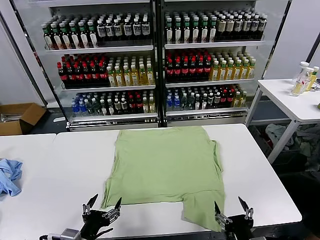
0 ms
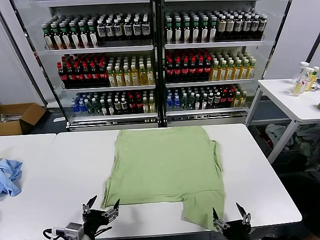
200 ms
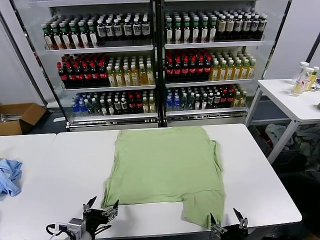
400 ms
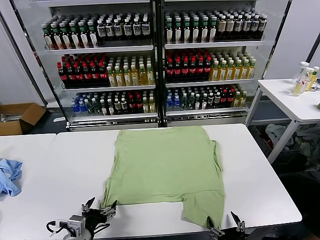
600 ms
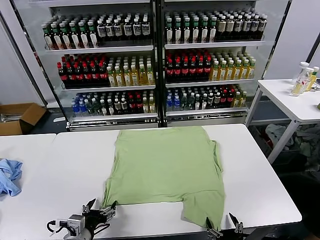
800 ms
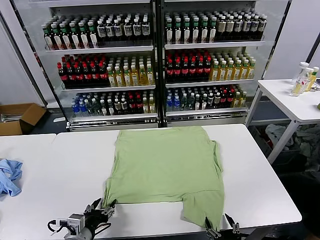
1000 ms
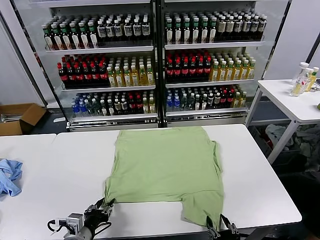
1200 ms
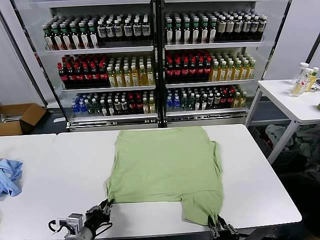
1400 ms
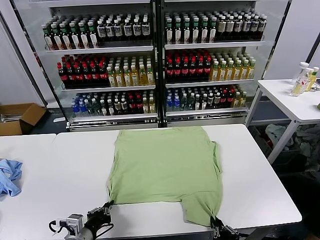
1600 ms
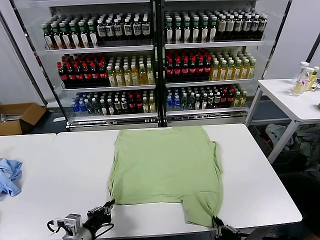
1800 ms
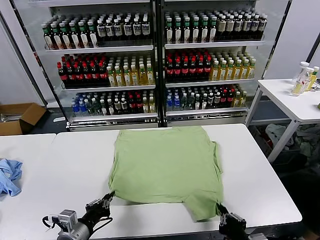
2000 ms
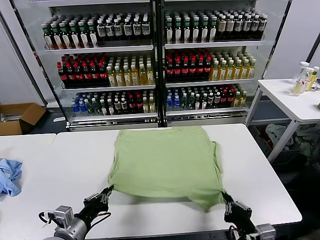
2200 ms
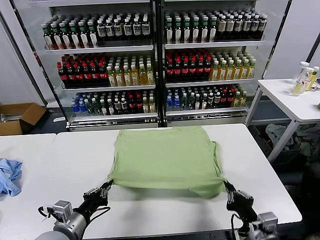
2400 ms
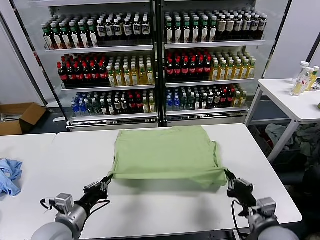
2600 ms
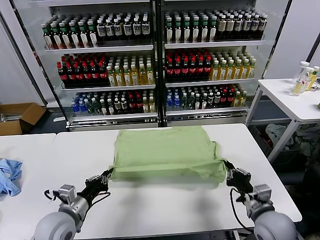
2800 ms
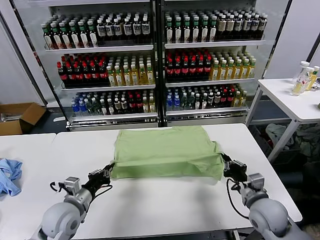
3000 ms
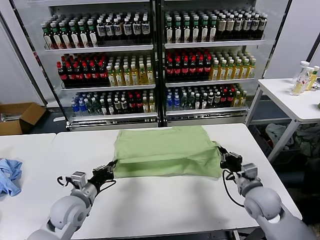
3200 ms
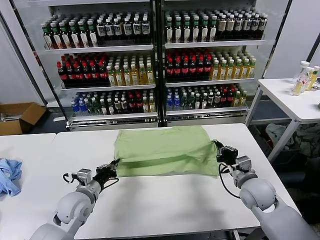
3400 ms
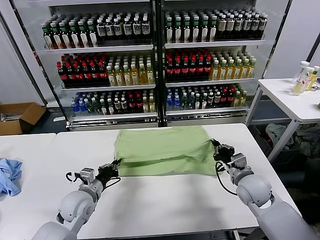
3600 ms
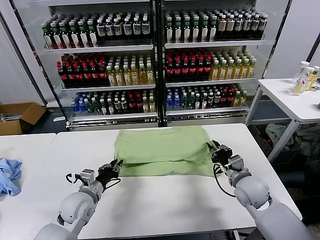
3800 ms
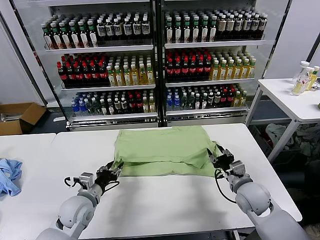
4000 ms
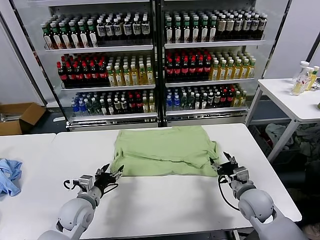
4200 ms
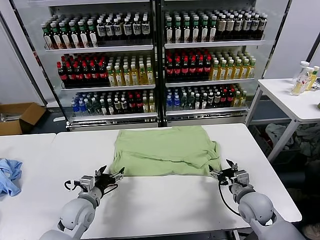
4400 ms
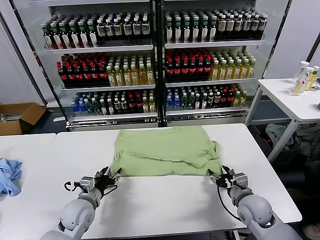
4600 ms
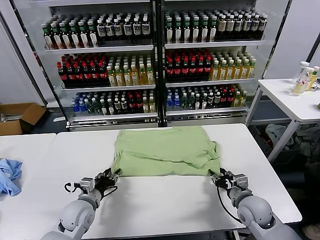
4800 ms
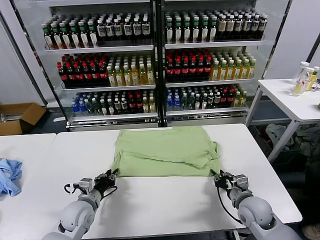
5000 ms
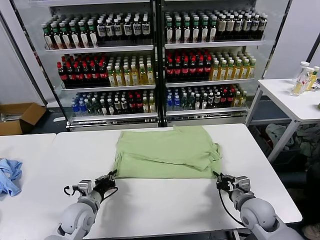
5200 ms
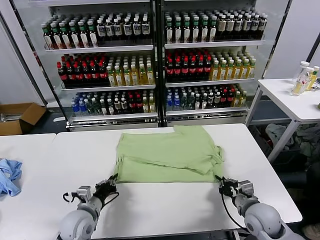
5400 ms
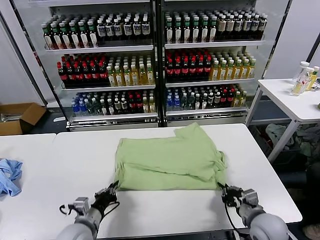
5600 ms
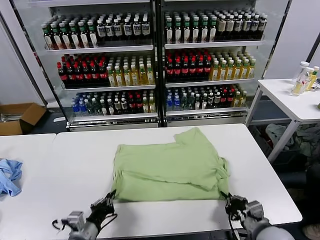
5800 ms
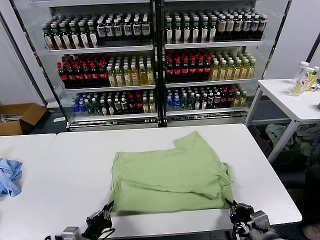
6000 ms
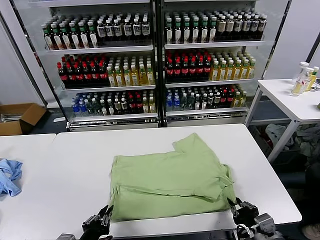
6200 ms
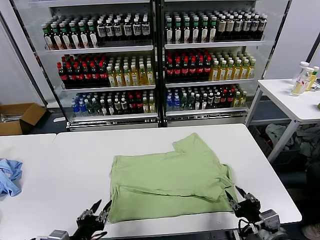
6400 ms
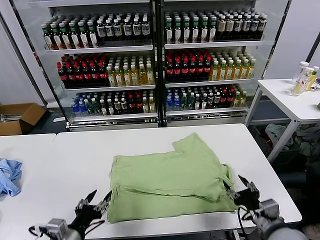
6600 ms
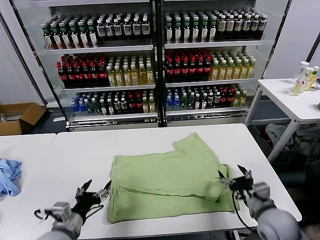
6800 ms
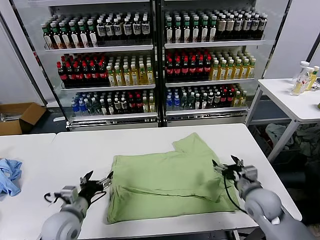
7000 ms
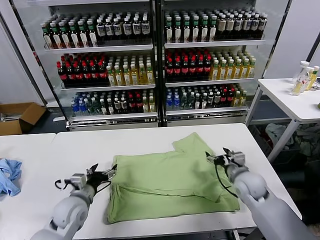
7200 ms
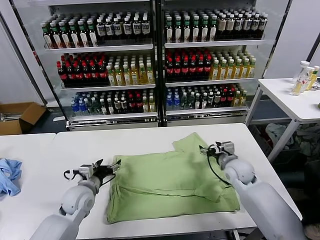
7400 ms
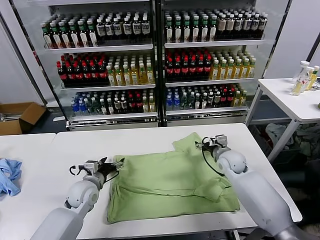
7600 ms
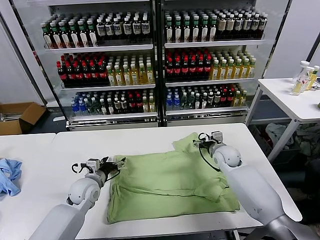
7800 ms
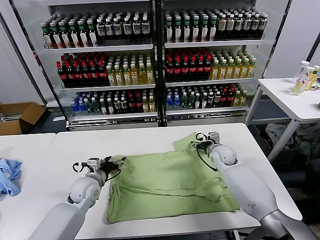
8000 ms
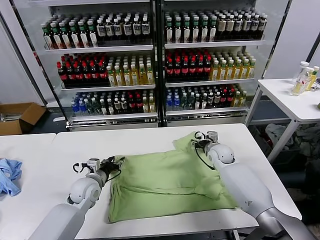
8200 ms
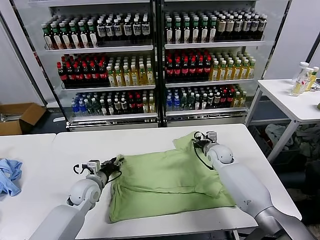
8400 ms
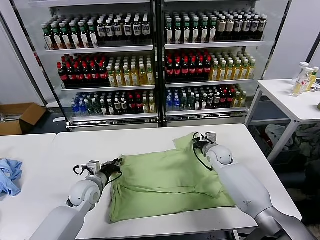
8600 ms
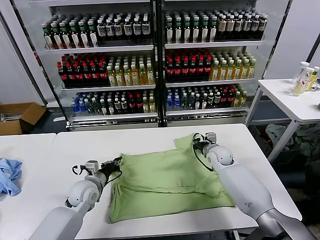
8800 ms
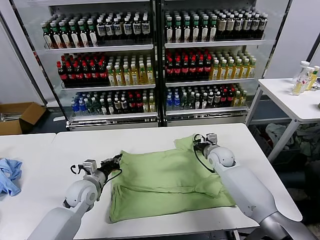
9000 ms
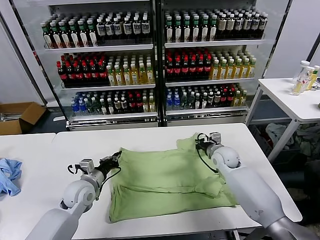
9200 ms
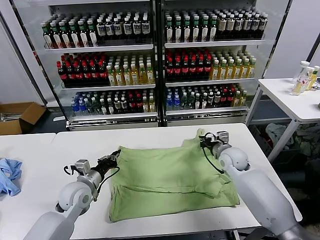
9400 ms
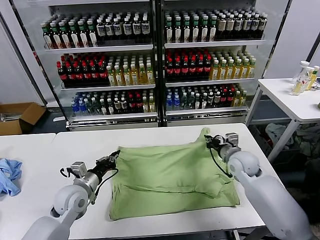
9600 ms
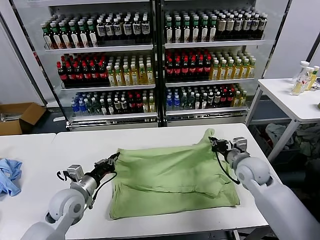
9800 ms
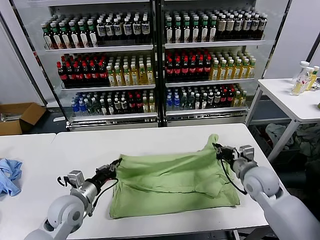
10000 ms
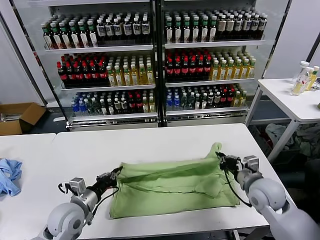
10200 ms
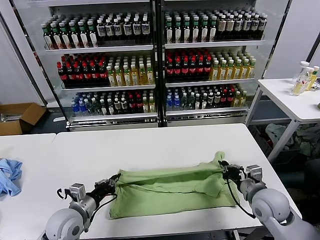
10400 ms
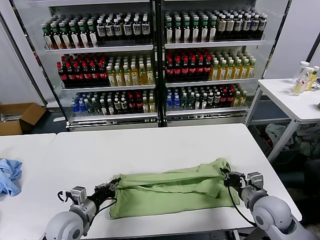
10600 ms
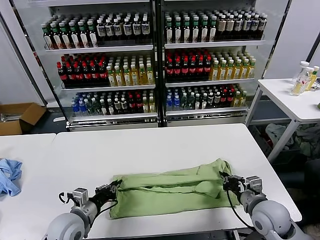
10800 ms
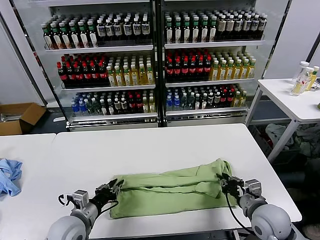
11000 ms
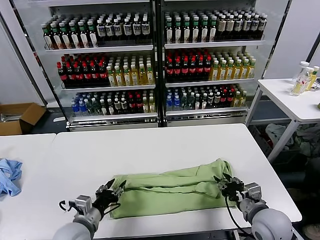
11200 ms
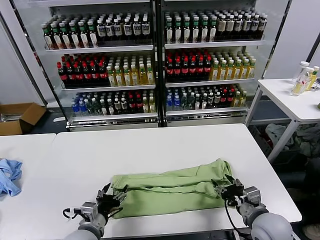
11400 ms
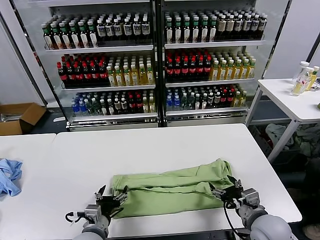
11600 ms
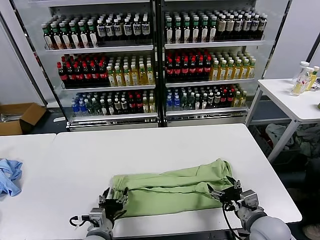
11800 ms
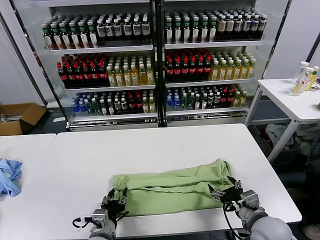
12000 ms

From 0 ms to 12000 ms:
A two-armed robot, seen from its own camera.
Task of the whole recording: fold and organize the clothes.
Step, from 0 ms to 1800 ms: use both grippers simultaneously to clamp the lower edge of the clothing fabric.
Step, from 2000 ms to 4000 ms: use both grippers to drag the lower edge of the fabric forward and fold it over the upper edge.
Step, from 4200 ms to 6200 ms: Drag the clothes downward with both gripper.
Step, from 6400 ms to 8600 ms: use both grippers simultaneously to clamp the upper edge of the clothing fabric.
Step, from 8800 ms to 11200 ms: use both grippers to drag the upper edge of the fabric backward and fold it over the lower edge.
From 1600 ms to 3000 ms: The right gripper shifts some 20 cm forward; the left gripper moves forward, approximately 10 cm.
From 3000 ms to 4400 ms: The left gripper moves downward, approximately 5 cm, and opens up. The right gripper opens.
From 4400 ms to 6000 ms: Both grippers travel together backward, approximately 15 cm. The right gripper closes. The left gripper closes its fingers.
From 6000 ms to 7600 ms: Both grippers move forward, about 30 cm. The left gripper opens its fingers, while the right gripper opens up.
From 7600 ms to 9000 ms: The left gripper closes its fingers. The right gripper closes up.
From 9000 ms to 10400 ms: The right gripper travels backward by some 20 cm. The left gripper heads backward, covering some 10 cm.
From 10400 ms to 12000 ms: The left gripper shifts about 10 cm to the right and backward, and opens up, while the right gripper heads backward, covering roughly 5 cm, and opens its fingers.

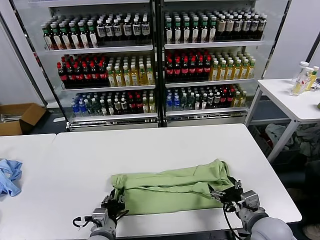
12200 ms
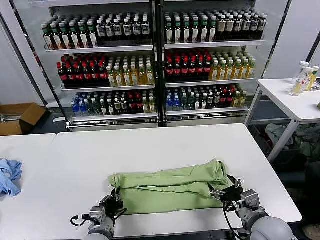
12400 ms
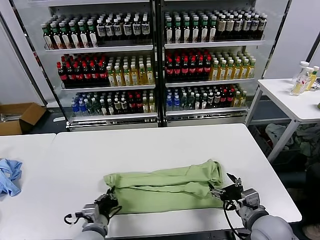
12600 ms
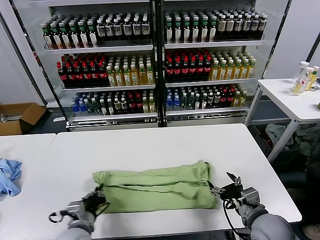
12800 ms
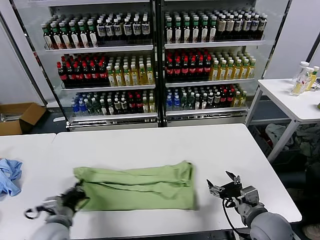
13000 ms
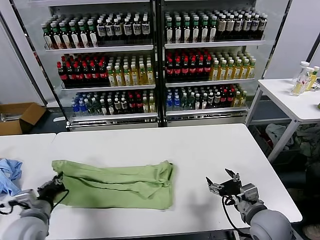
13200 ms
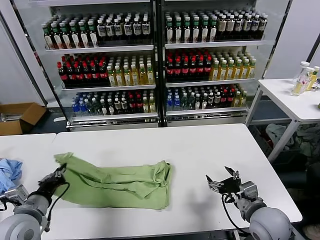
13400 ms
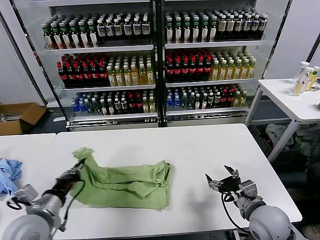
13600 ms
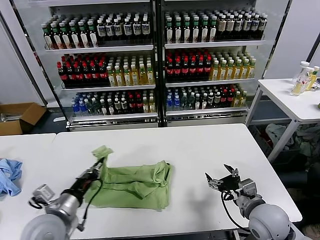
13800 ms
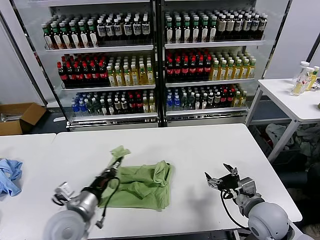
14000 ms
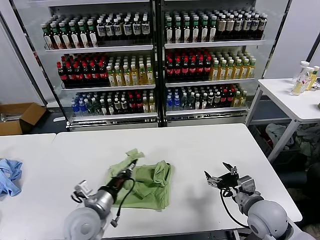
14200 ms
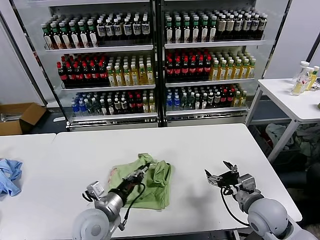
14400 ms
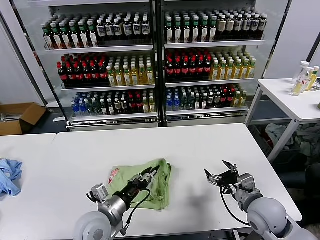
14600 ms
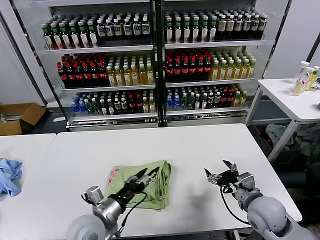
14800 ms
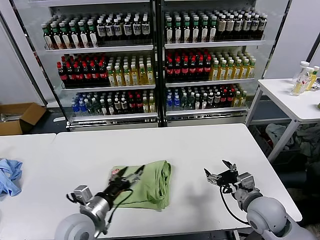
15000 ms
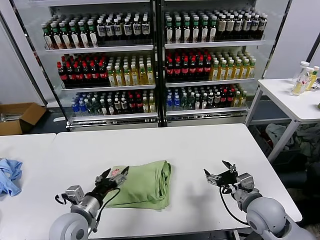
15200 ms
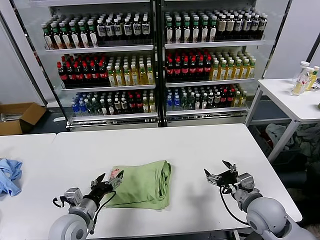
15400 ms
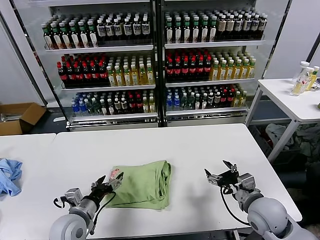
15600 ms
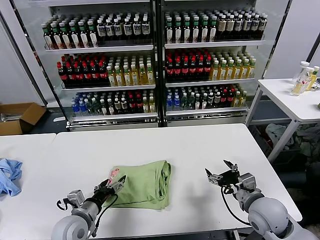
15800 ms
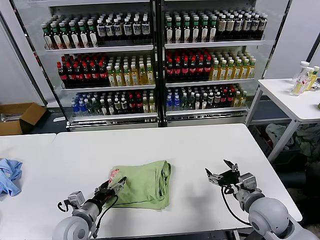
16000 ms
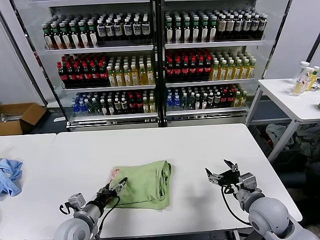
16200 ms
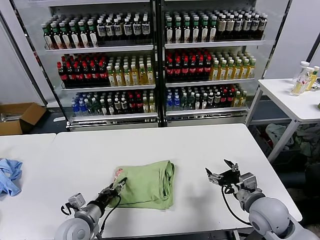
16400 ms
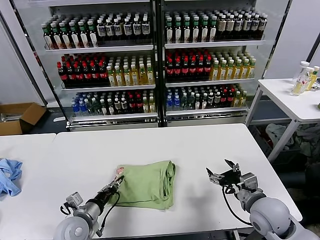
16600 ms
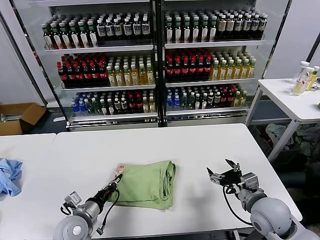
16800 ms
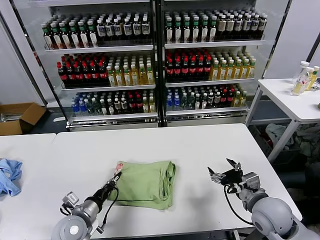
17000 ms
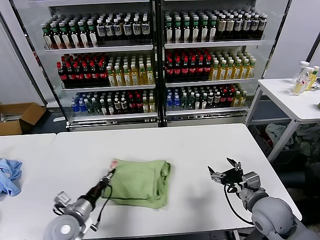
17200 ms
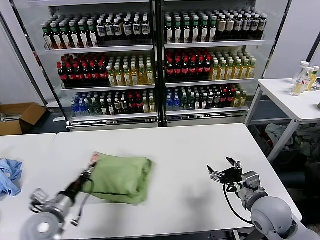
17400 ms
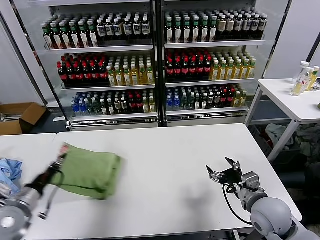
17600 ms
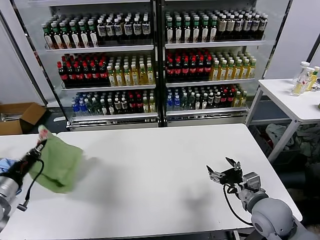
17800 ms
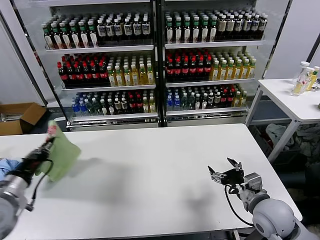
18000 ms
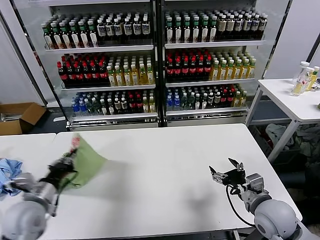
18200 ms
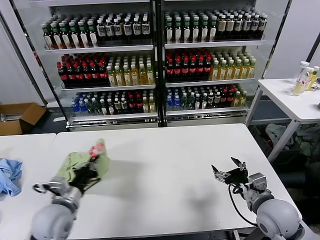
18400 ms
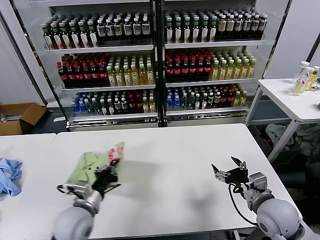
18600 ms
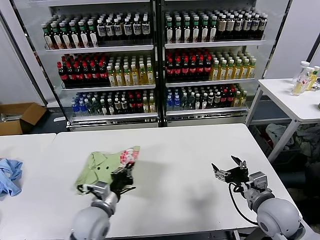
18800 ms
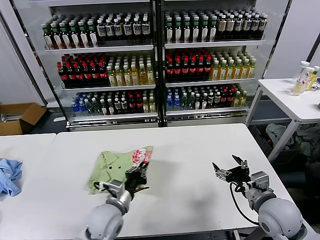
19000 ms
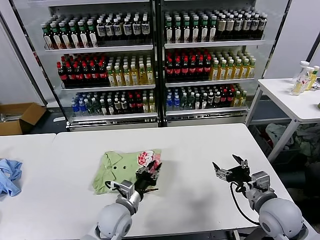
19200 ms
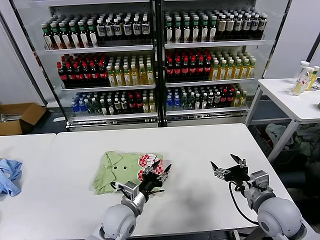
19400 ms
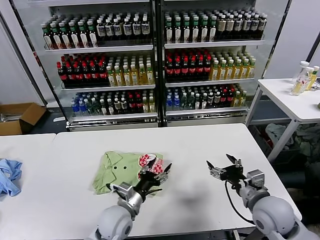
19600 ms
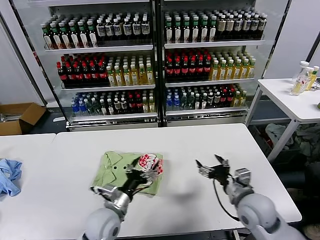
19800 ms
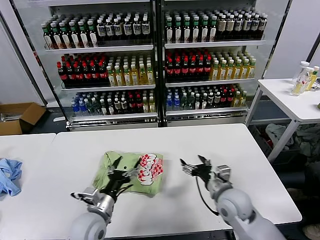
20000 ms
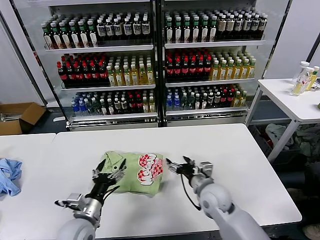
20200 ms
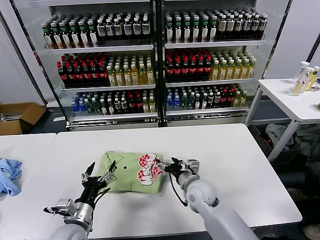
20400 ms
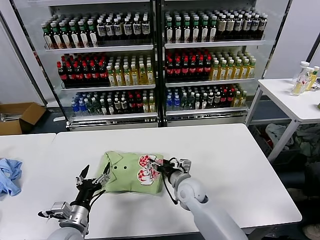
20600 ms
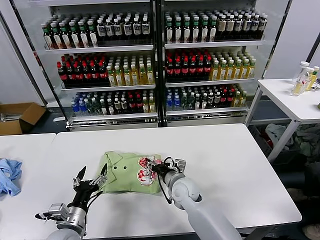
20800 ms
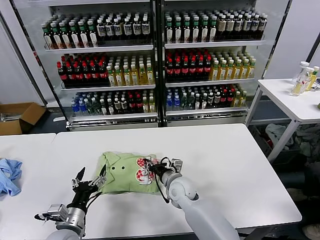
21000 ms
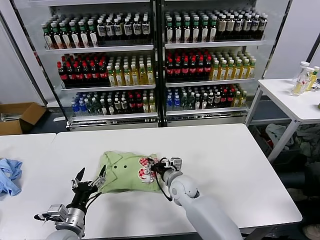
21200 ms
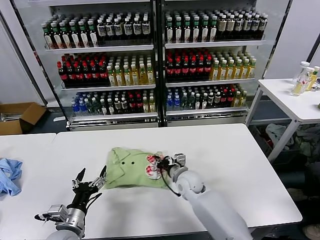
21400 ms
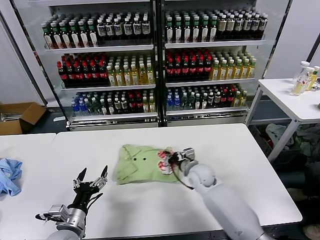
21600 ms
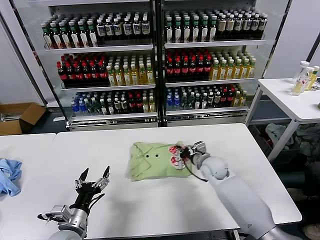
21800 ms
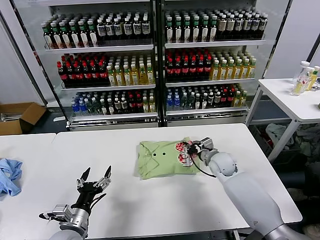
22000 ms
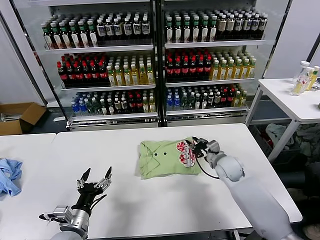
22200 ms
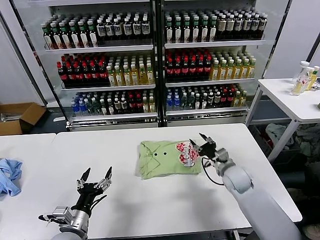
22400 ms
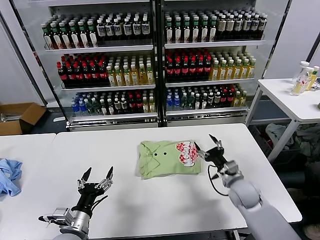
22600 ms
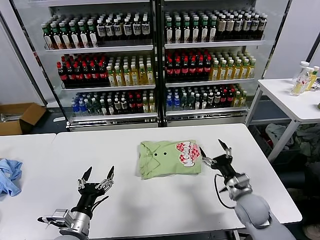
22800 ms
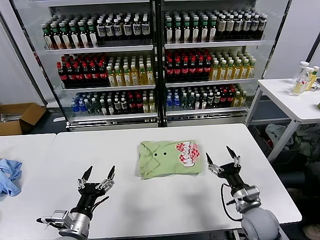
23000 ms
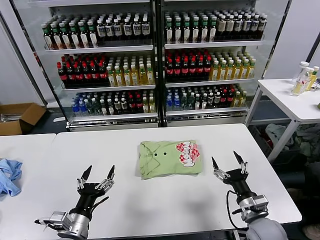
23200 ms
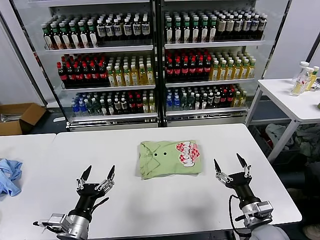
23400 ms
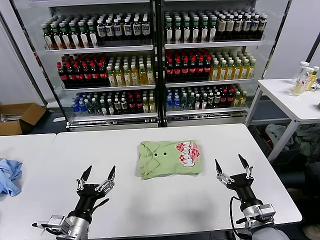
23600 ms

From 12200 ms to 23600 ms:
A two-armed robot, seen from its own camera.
Task of the whole recording: fold and organize the clothes.
Step, from 12600 ms to 14600 ms: use the left gripper to drag the left edge of the fabric to the left and folds it over the right edge.
Step, from 14800 ms to 19400 ms: Flip the folded clothes over with left gripper.
Step, from 19600 ms to 22200 ms: Drag the clothes to the center of the table.
From 12200 ms to 13600 ms: The left gripper moves to the left and upward, approximately 20 cm, and closes up.
From 13600 ms to 15000 ms: The left gripper shifts about 10 cm to the right, and opens.
From 15000 ms to 16400 ms: The left gripper shifts approximately 5 cm downward.
From 16400 ms to 17800 ms: The left gripper travels to the left and upward by roughly 25 cm, and closes.
From 17800 ms to 19400 ms: The left gripper travels to the right and downward by roughly 35 cm, and opens up.
From 19400 ms to 20800 ms: The right gripper moves to the left, forward and downward, roughly 30 cm. Meanwhile the left gripper travels to the left and backward by some 15 cm, and opens up.
From 20800 ms to 22200 ms: The right gripper is displaced to the right and forward by roughly 20 cm, and closes its fingers.
From 22200 ms to 23600 ms: The right gripper shifts some 25 cm backward, and opens up. The left gripper ends up some 5 cm from where it was.
